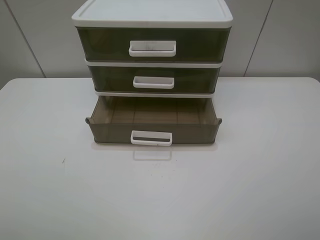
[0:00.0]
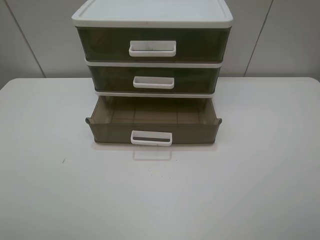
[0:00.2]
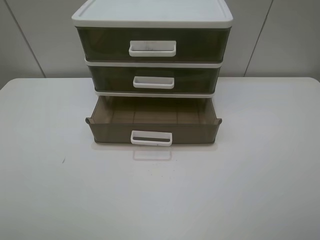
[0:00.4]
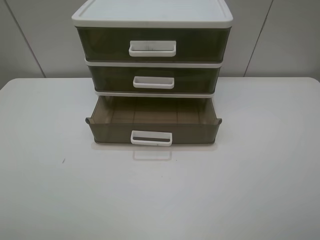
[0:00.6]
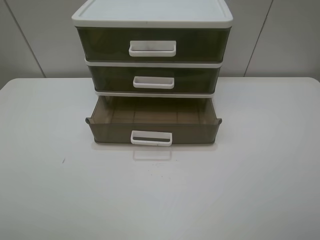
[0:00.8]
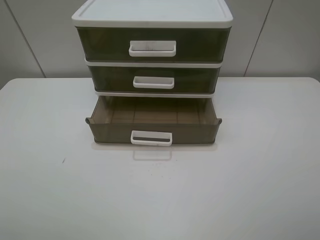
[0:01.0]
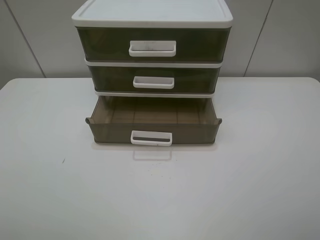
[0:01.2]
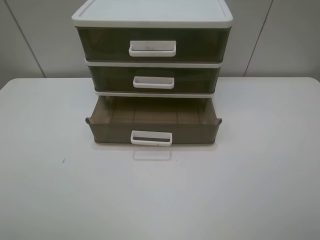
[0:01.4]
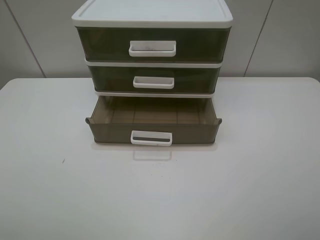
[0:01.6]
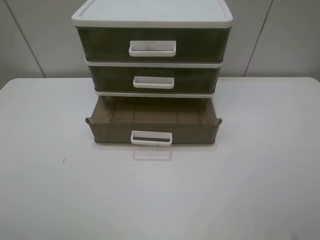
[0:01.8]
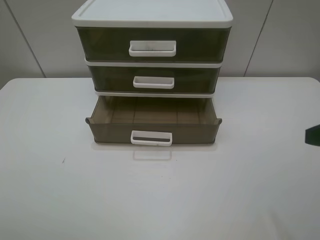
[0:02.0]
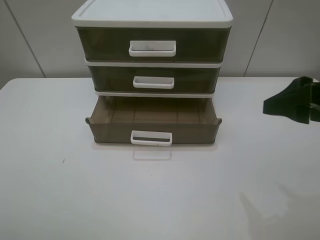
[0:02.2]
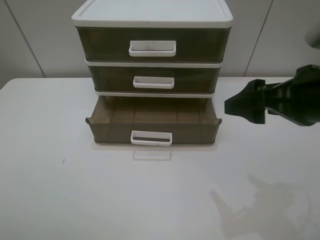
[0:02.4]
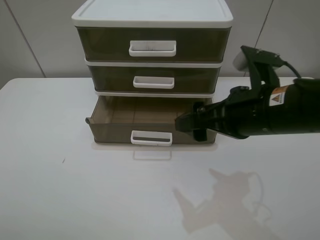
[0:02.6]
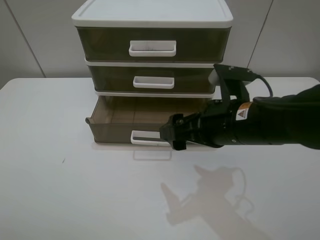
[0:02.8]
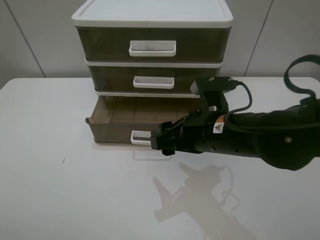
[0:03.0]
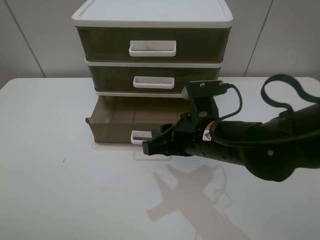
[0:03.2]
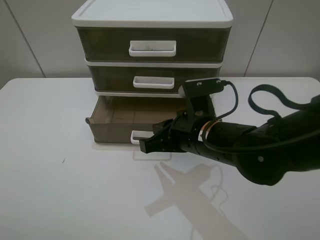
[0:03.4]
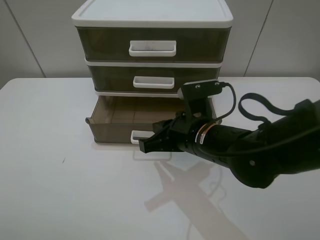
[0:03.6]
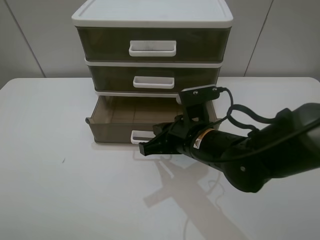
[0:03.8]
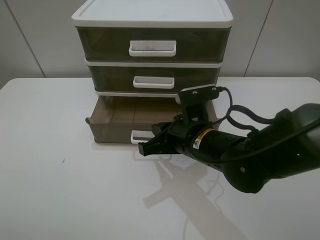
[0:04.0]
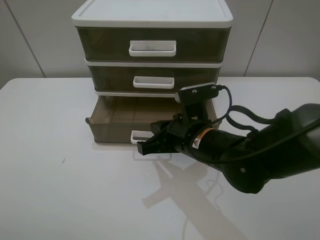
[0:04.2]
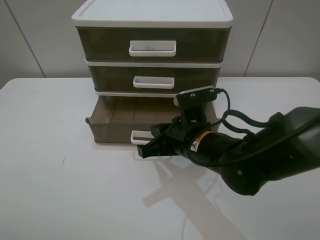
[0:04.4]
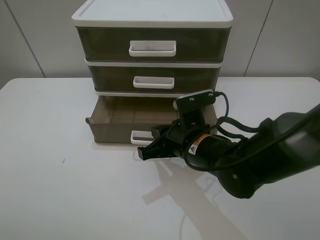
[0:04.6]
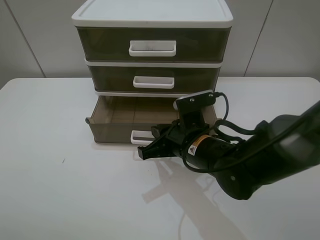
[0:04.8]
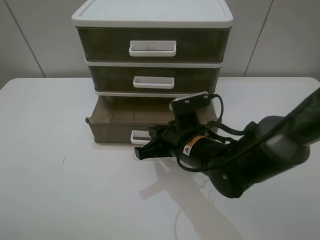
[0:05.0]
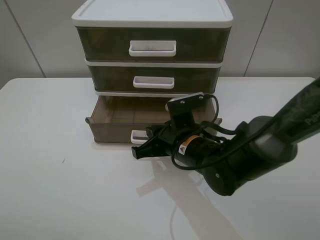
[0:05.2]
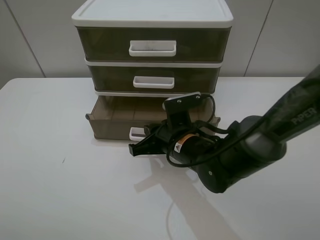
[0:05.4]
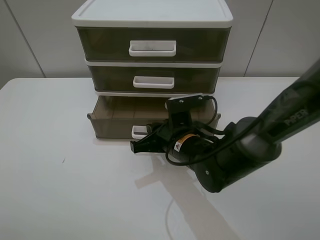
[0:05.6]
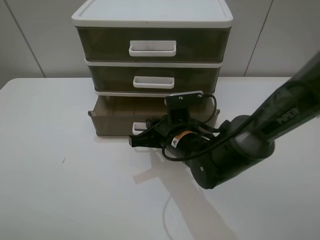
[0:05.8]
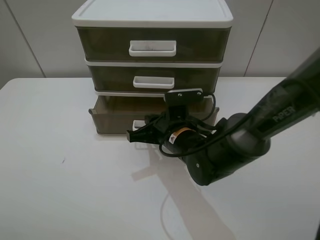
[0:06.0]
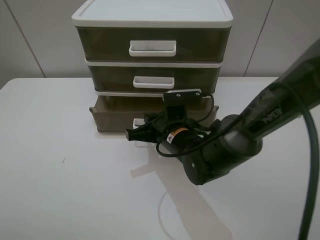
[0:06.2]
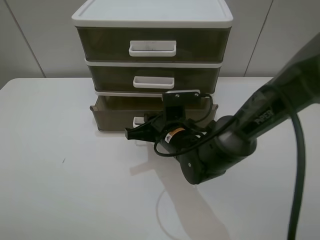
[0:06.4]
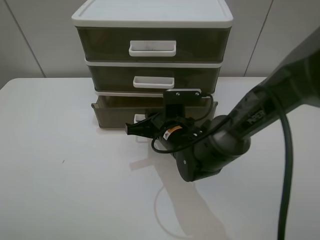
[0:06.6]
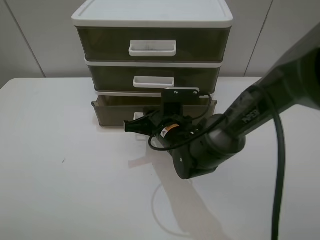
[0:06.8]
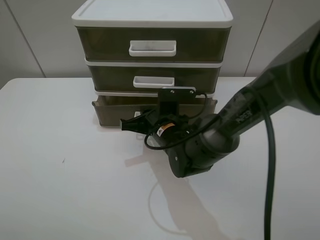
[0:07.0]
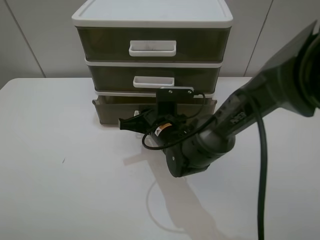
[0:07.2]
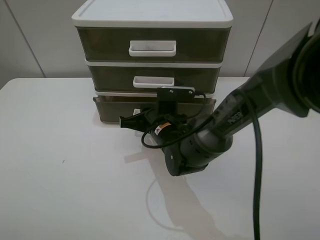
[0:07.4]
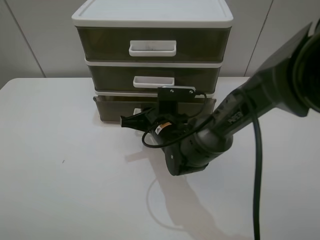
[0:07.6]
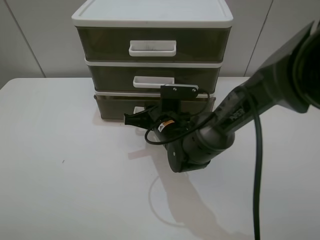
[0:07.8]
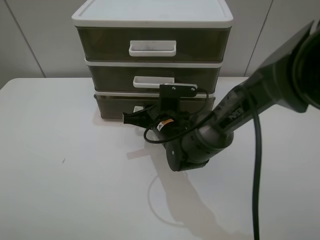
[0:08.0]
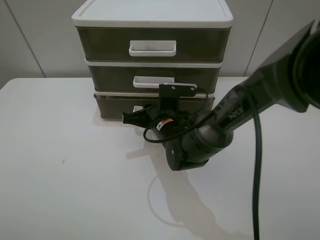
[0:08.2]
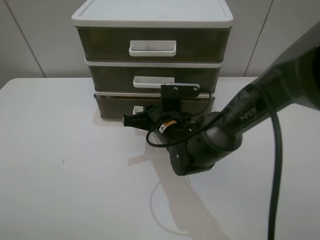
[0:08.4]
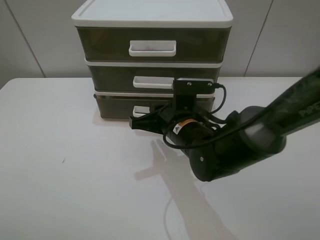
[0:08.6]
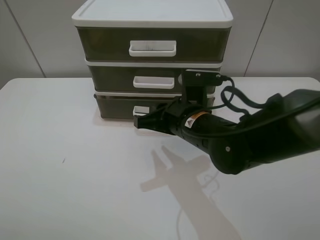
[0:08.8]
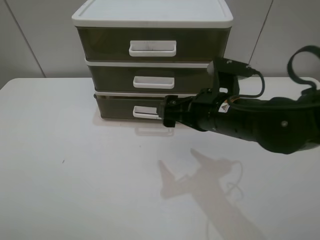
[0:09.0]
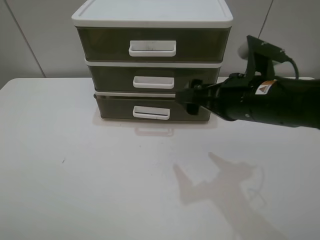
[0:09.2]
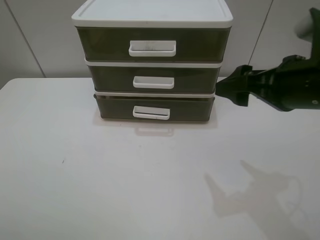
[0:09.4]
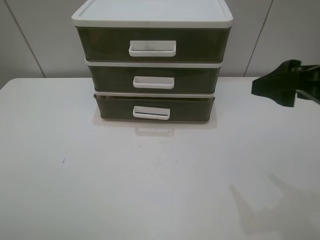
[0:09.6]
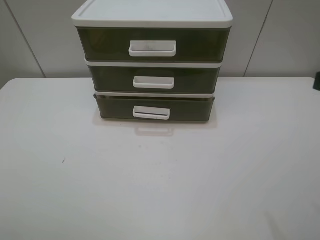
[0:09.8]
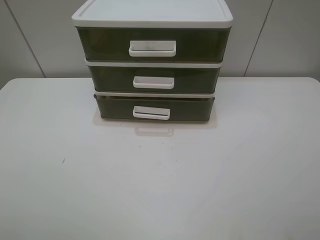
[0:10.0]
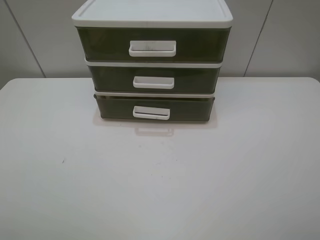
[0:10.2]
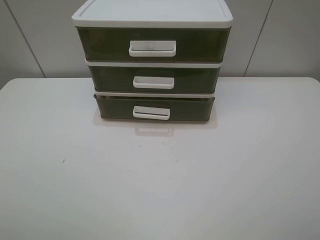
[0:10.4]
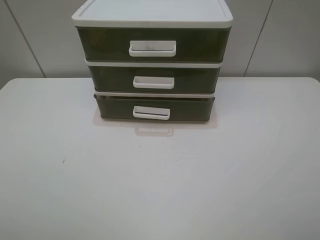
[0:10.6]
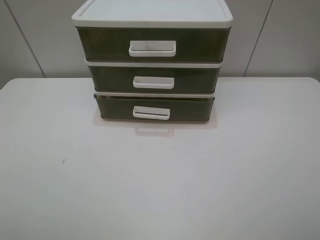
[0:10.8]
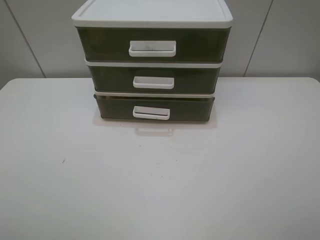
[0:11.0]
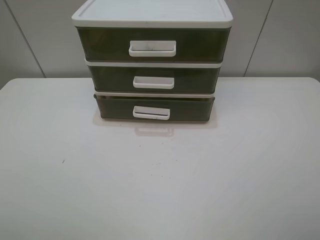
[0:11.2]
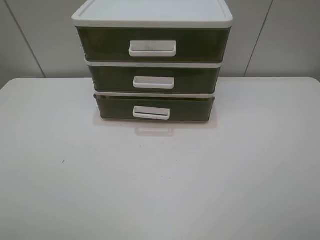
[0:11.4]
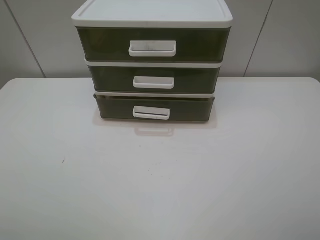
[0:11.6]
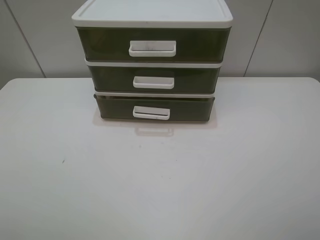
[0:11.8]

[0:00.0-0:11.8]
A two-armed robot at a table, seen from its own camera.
Task of the whole recording: close the bottom drawer.
Step, 0:00.0 to 0:05.2: Use the right gripper to contact the bottom layer of the storage cabinet.
Step, 0:05.4 to 0:08.2: Push the bottom drawer closed.
0:00.0 to 0:01.4: Both grippers stay about where they are.
0:01.4 to 0:03.0: The right gripper shifts some 30 cm to the left, forward and downward.
0:03.0 to 0:04.4: The right gripper shifts by about 5 cm, and closes its fingers.
0:04.4 to 0:06.0: The right gripper shifts by approximately 5 cm.
0:06.0 to 0:07.4: There are only small adjustments of the grippers.
0:07.4 to 0:08.8: The right gripper goes some 5 cm upward.
0:08.8 to 0:10.4: The right gripper heads to the right, backward and upward, covering about 40 cm, and opens.
